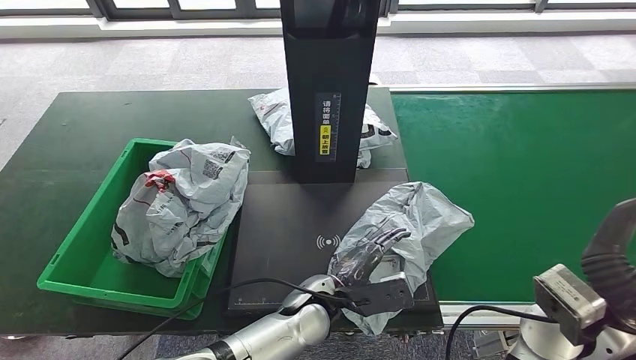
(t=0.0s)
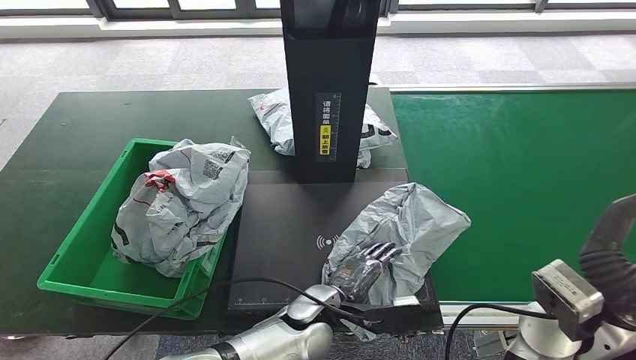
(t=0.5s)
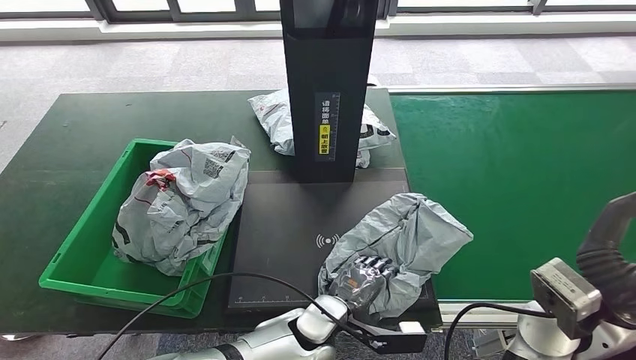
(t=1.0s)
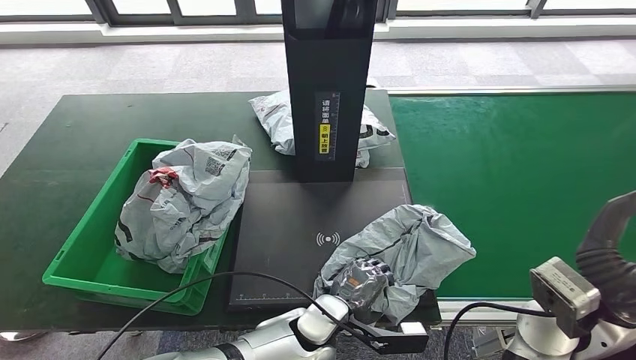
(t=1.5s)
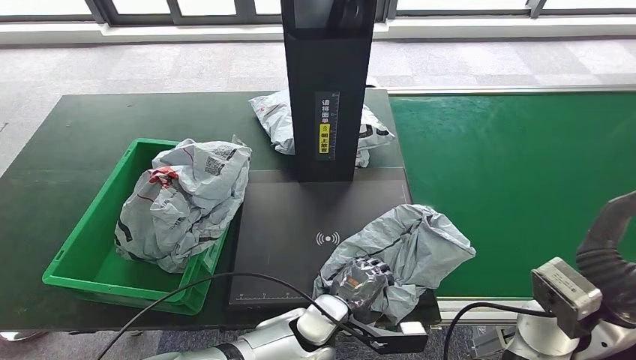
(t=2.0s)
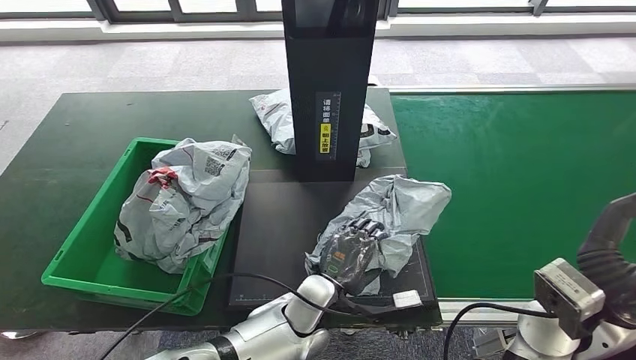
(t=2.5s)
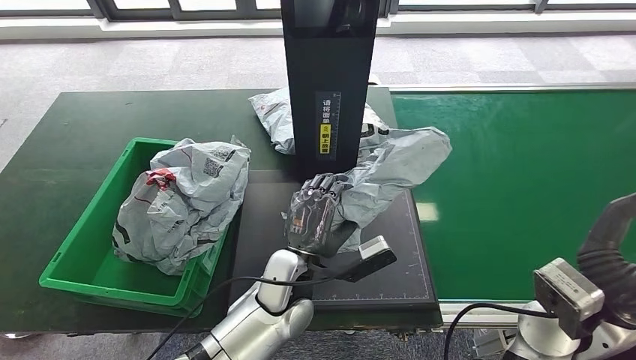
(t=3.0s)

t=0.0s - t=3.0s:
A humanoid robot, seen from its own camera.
Step, t=0.0s - t=3.0s: Pick up the parcel from the inbound machine.
